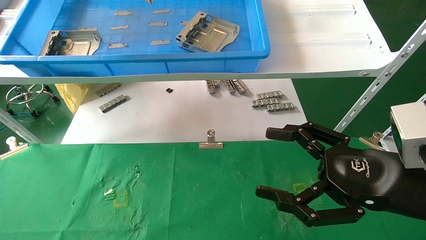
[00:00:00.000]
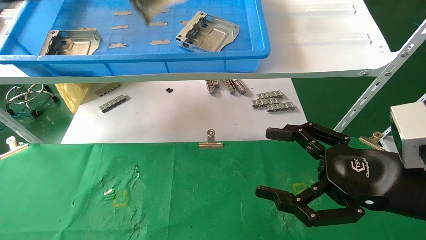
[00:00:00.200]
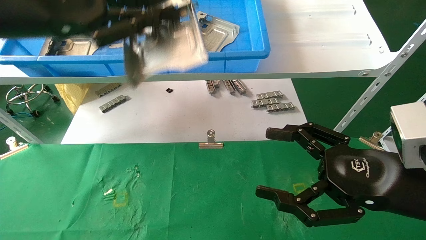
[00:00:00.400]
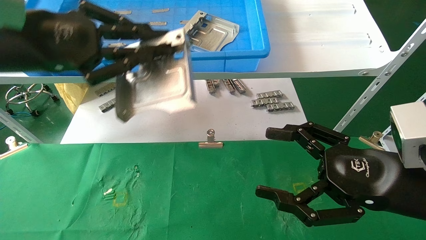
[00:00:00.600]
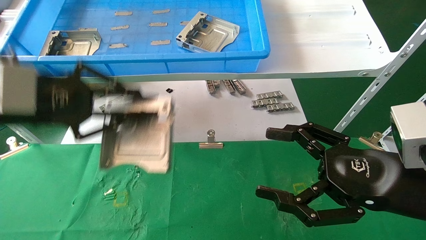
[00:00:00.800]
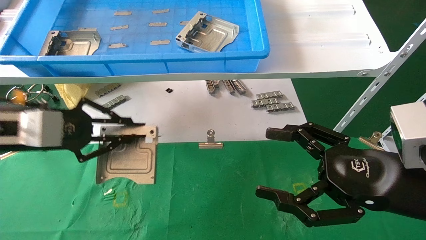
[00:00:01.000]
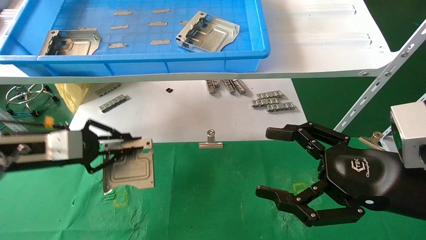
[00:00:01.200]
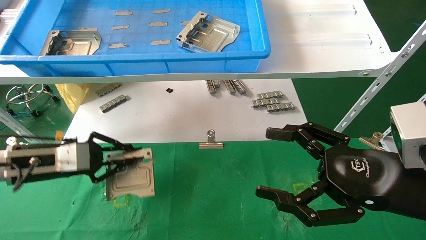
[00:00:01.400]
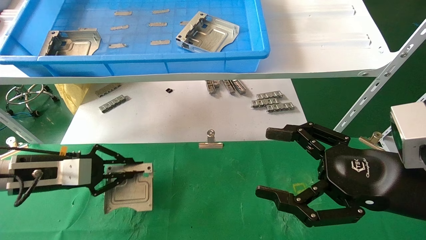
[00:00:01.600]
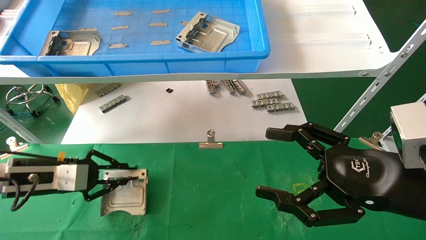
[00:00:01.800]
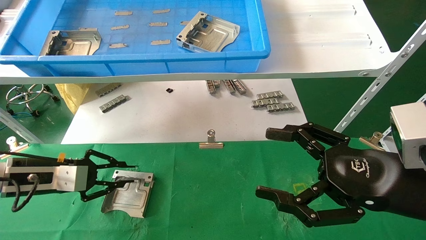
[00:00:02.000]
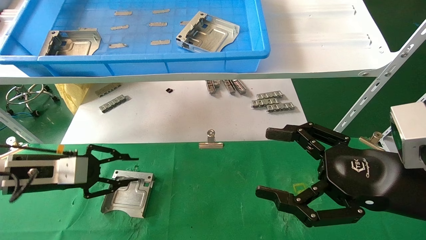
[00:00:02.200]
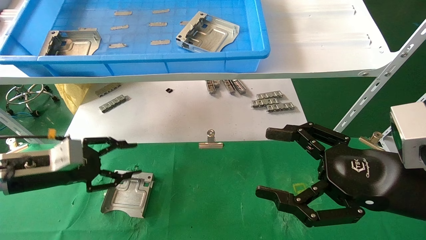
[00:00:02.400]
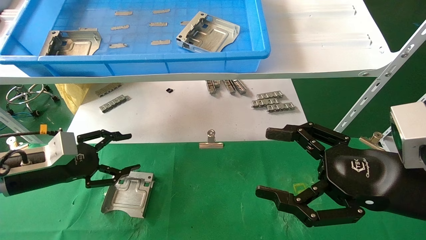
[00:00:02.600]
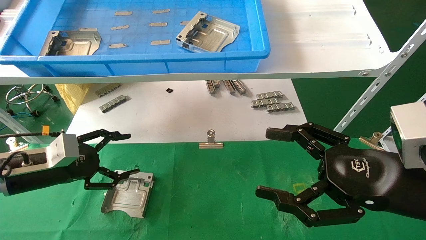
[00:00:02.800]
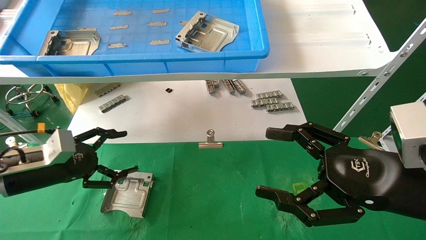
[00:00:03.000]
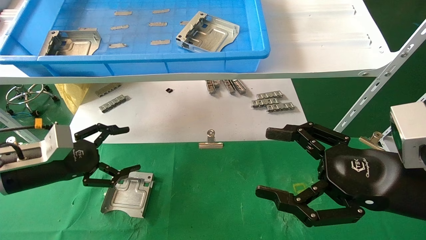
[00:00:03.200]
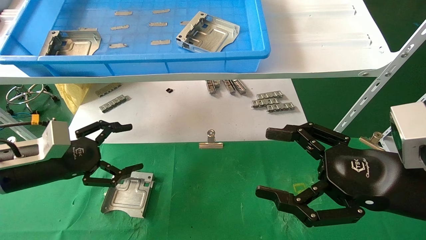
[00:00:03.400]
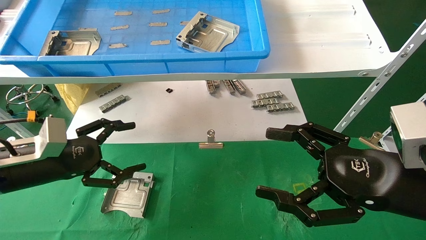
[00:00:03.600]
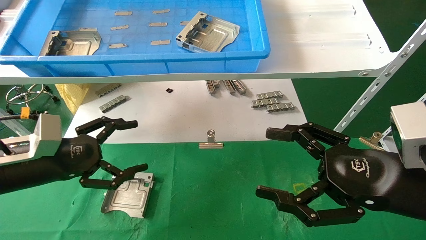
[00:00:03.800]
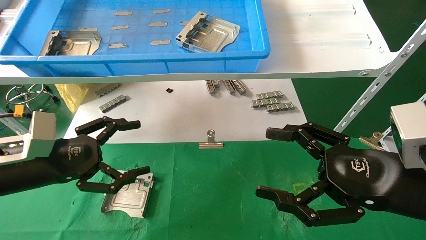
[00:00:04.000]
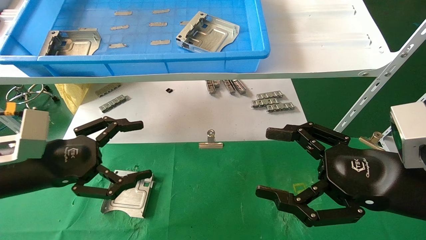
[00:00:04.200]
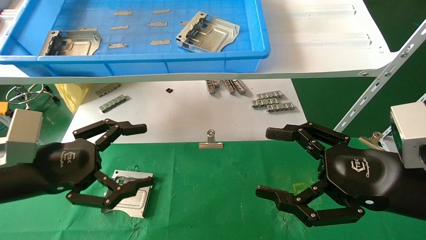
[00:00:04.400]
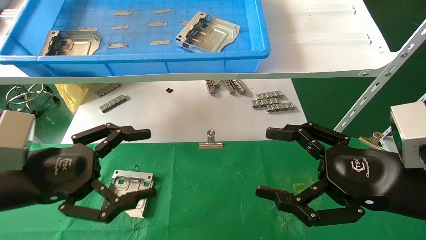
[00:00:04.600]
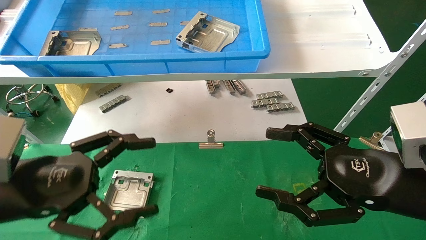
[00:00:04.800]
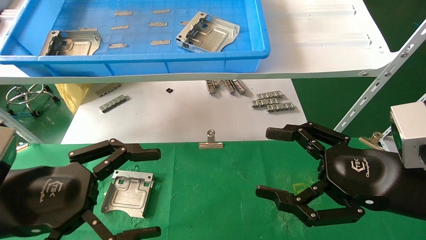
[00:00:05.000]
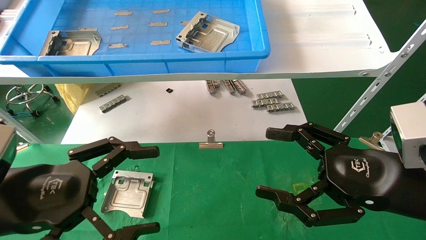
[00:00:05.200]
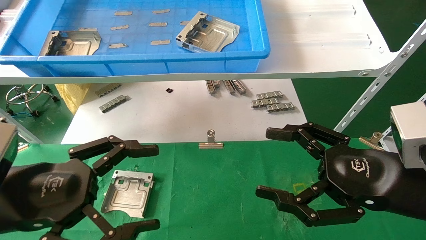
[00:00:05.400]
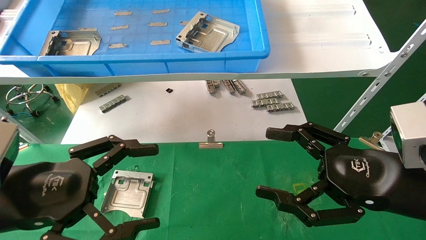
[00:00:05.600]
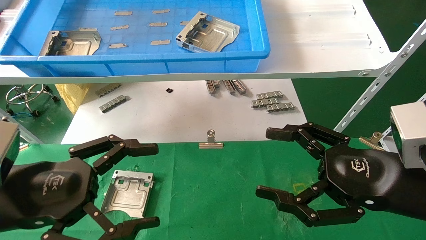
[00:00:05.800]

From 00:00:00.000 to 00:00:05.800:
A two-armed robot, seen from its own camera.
Task of the whole recording: use the mechanical arm to pick up the parts and place them on the table.
Step, from 00:00:00.000 to 00:00:02.000: Place the hard drive bracket into the box.
From 00:00:00.000 to 00:00:01.400: The left gripper moves downward, roughly 30 cm.
From 00:00:01.400 to 00:00:02.800: The left gripper opens up.
From 00:00:02.800 to 00:00:04.400: The left gripper travels backward, to the right and upward by some 10 cm.
From 00:00:04.400 to 00:00:05.800: The left gripper is displaced backward by approximately 5 cm.
